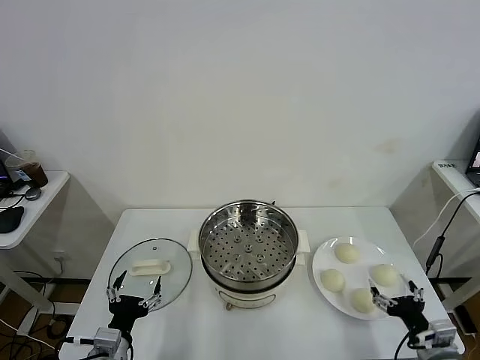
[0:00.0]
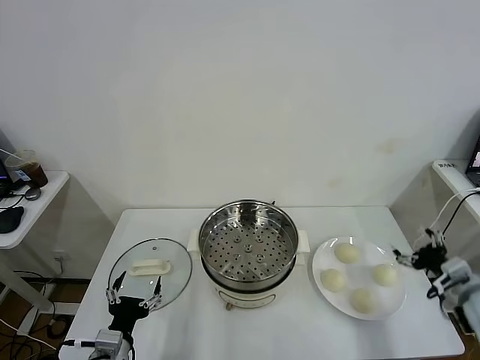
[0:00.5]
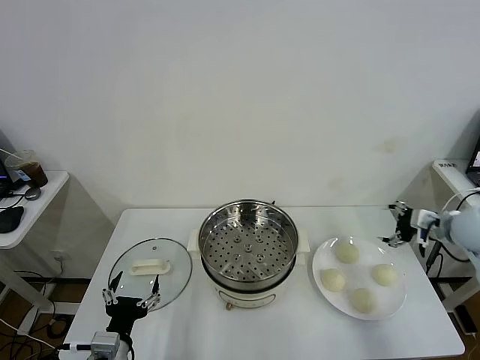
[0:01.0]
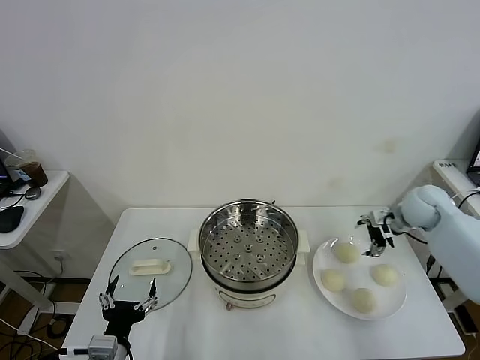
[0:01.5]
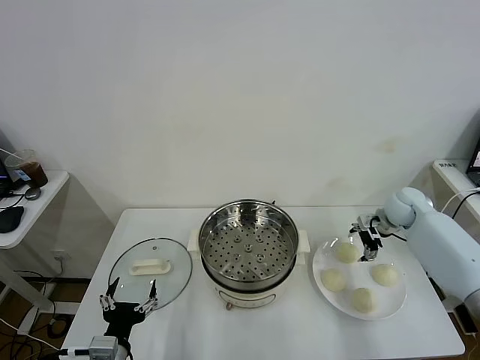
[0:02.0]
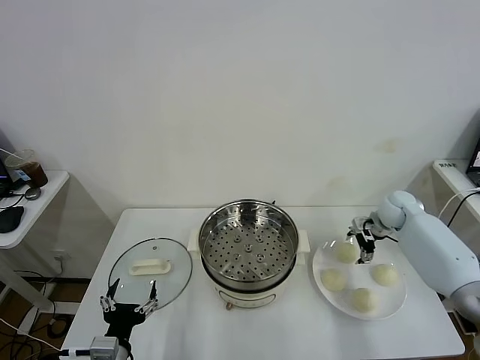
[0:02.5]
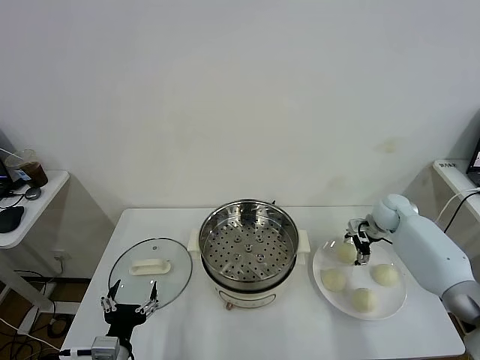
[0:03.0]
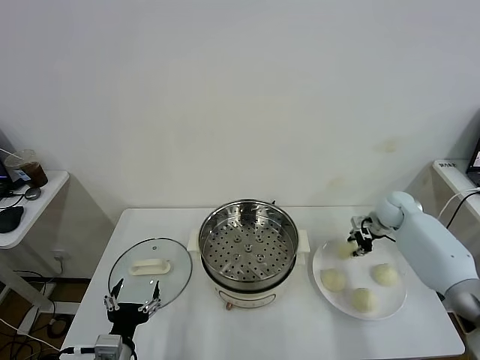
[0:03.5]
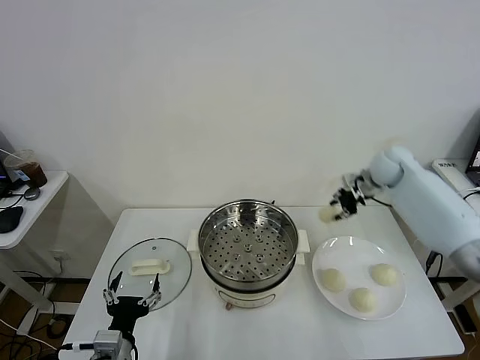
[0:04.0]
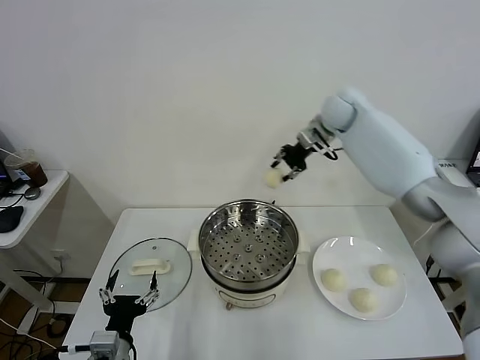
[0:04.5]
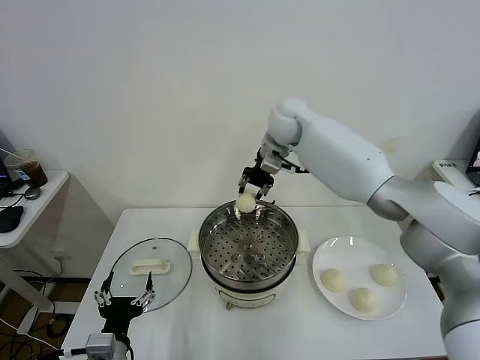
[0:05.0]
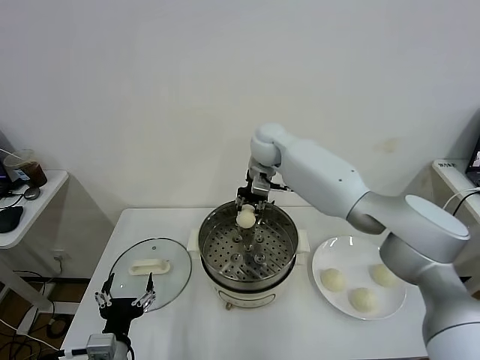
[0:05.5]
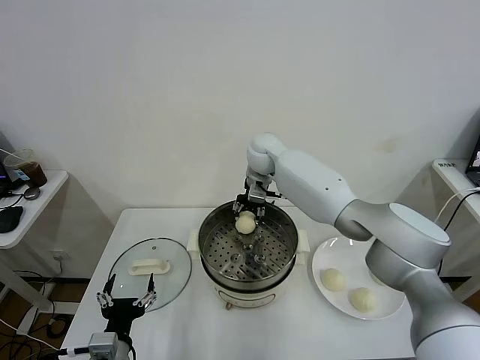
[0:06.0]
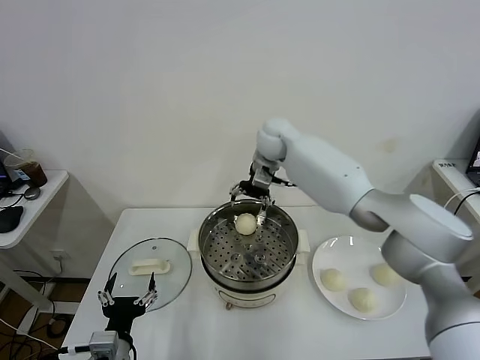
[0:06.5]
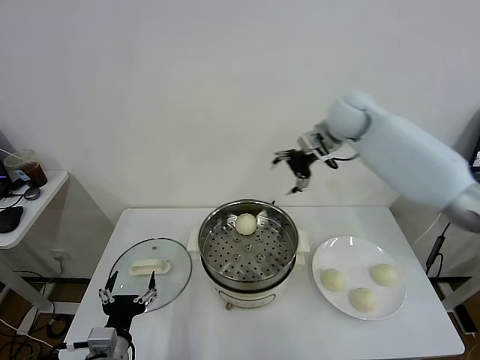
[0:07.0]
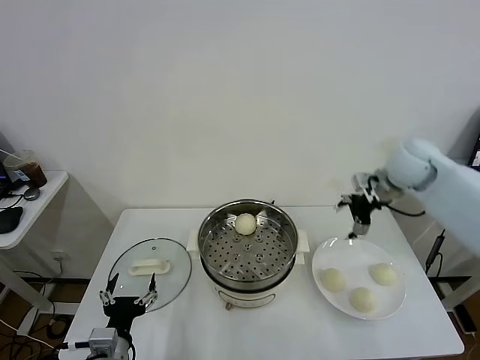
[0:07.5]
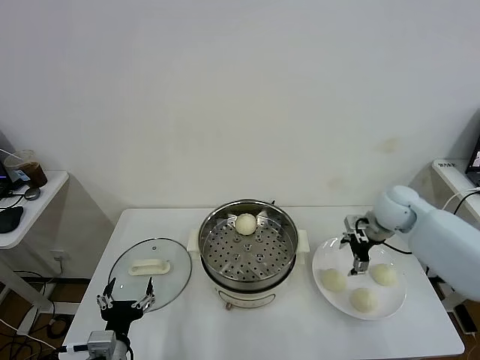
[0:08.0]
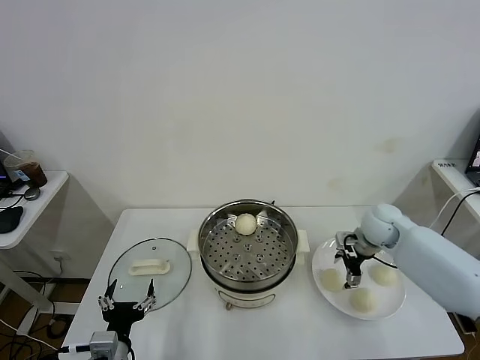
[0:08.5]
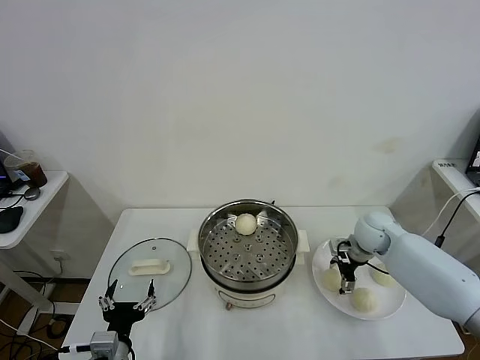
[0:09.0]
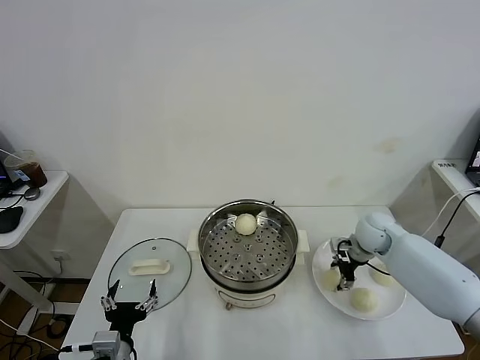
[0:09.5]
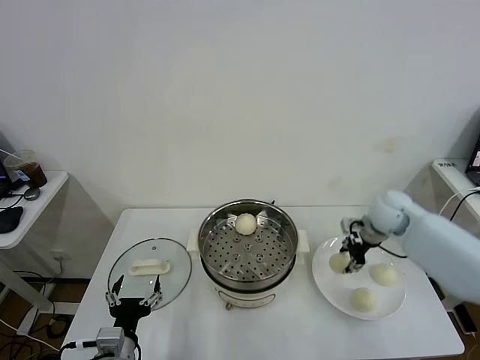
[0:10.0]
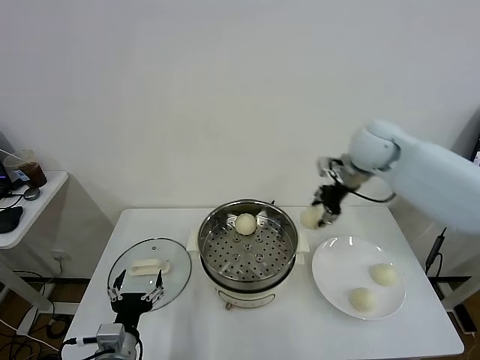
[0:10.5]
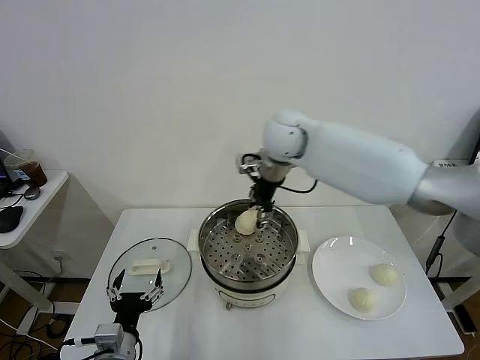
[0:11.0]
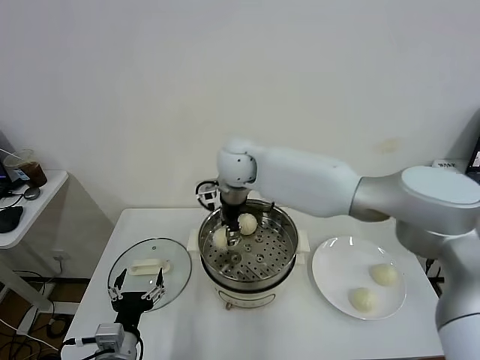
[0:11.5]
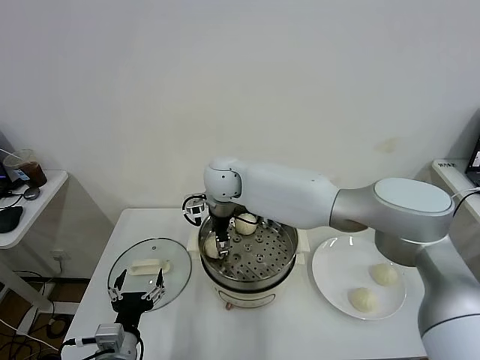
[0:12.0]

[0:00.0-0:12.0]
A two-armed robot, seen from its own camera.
Task of the whole recording: take steamed baozi put them in steamer.
Step, 0:00.0 to 0:03.0: Grasp the baozi in the plate with right gripper.
Step, 0:03.5 to 0:06.0: Place the baozi on the steamer with right gripper.
Step, 0:06.5 to 0:09.5: Grasp the baozi in the plate with right gripper.
0:02.0 to 0:04.0: The right gripper travels upward, forward and to the left by some 15 cm, and closes up.
0:04.0 to 0:06.0: The right gripper travels to the left by roughly 30 cm.
0:06.0 to 0:08.0: The right gripper is displaced to the right and backward by about 35 cm, and opens up.
0:08.0 to 0:10.0: The right gripper reaches approximately 10 cm downward, then returns, and closes.
0:10.0 to 0:12.0: The right gripper is displaced to the left by about 40 cm.

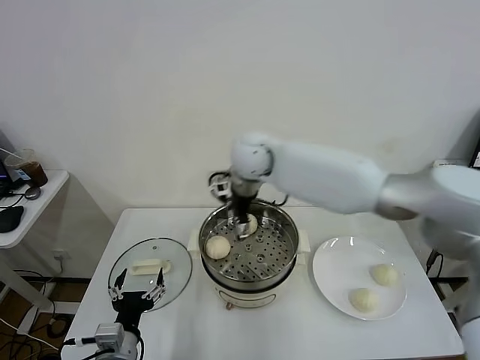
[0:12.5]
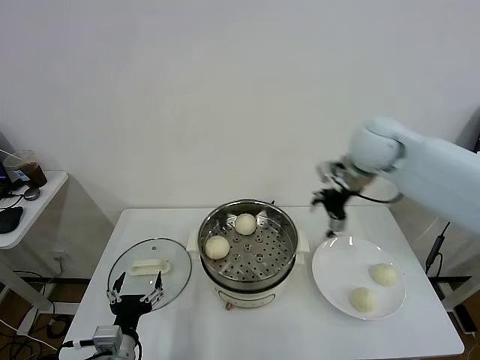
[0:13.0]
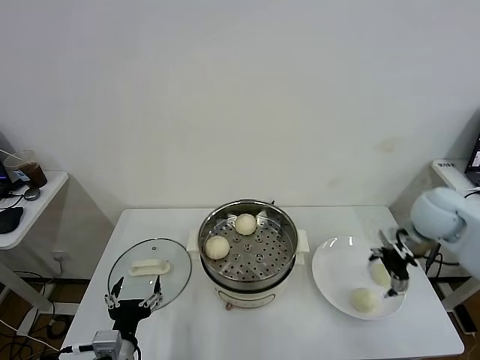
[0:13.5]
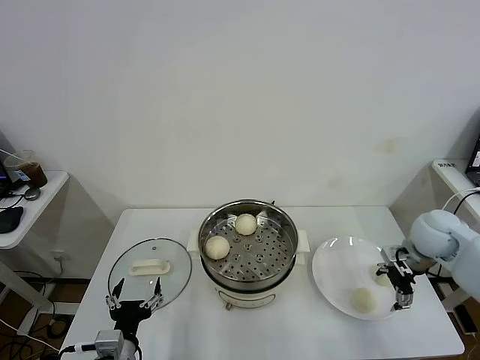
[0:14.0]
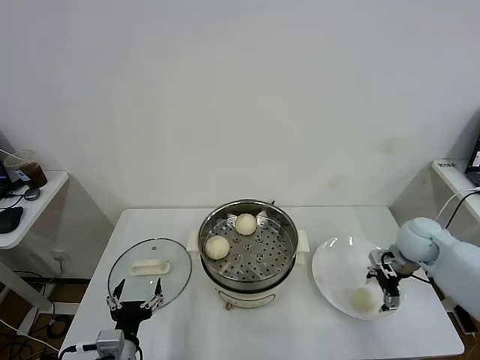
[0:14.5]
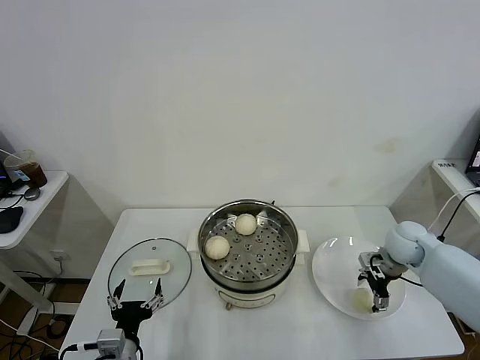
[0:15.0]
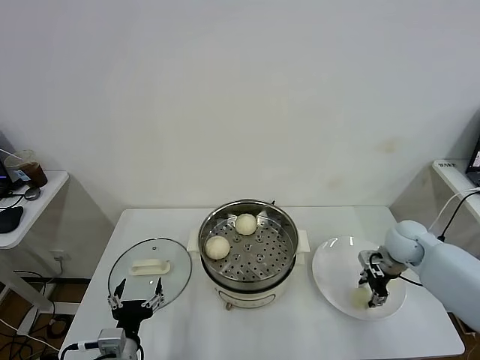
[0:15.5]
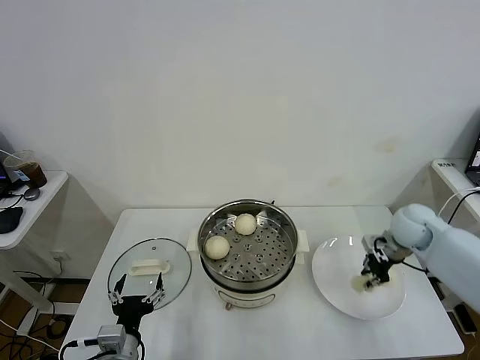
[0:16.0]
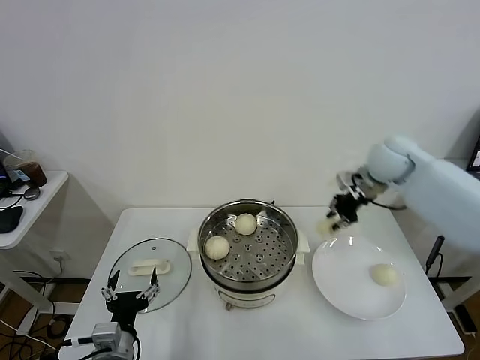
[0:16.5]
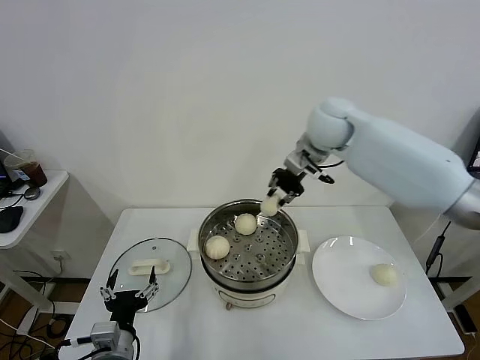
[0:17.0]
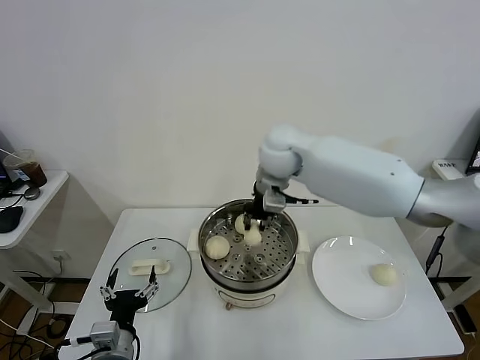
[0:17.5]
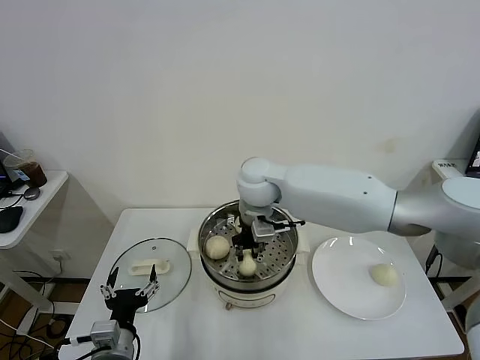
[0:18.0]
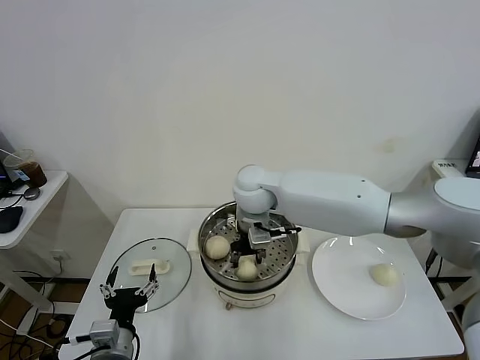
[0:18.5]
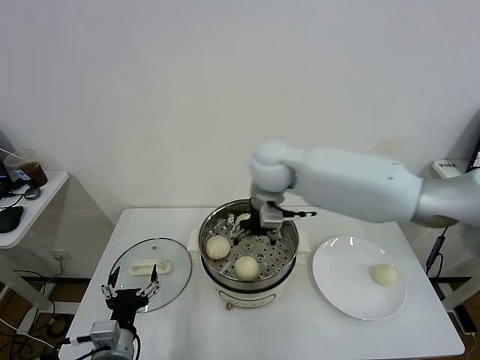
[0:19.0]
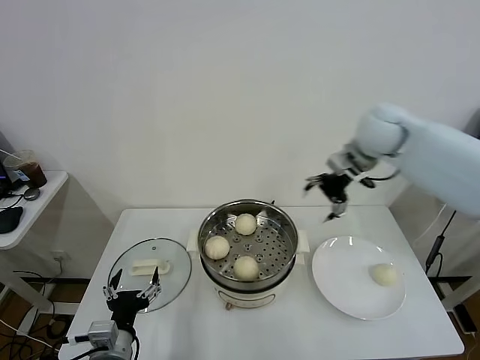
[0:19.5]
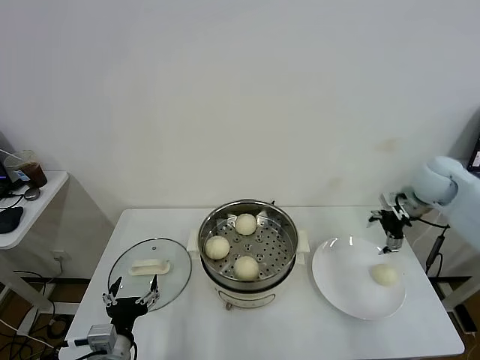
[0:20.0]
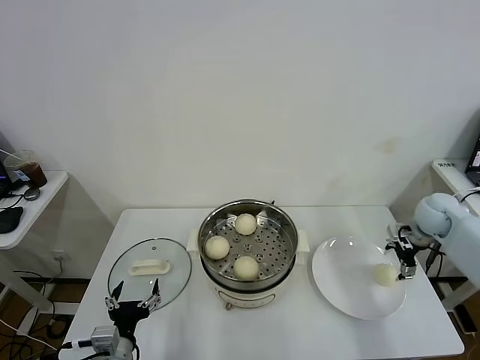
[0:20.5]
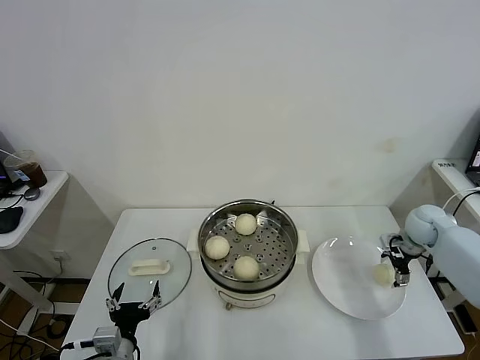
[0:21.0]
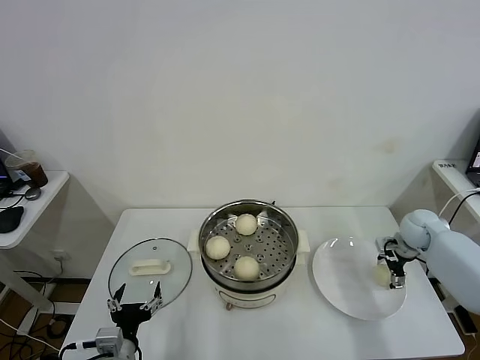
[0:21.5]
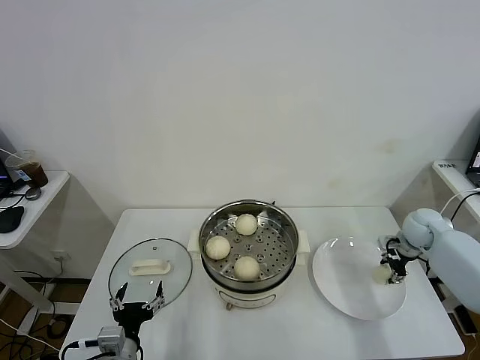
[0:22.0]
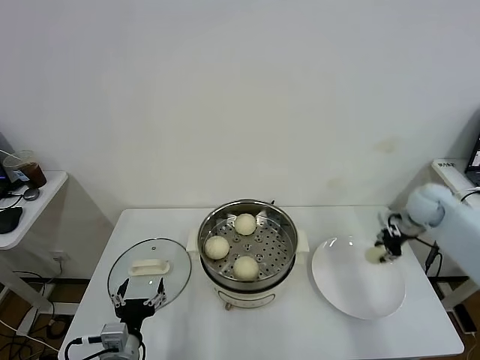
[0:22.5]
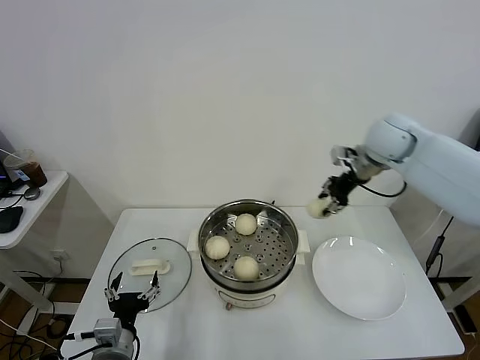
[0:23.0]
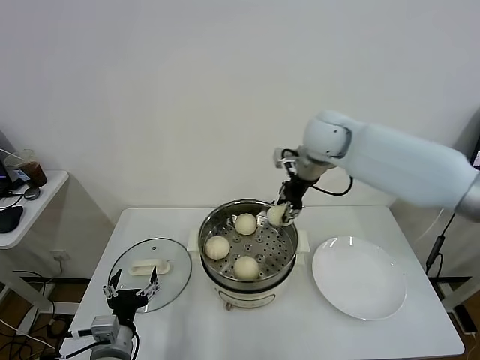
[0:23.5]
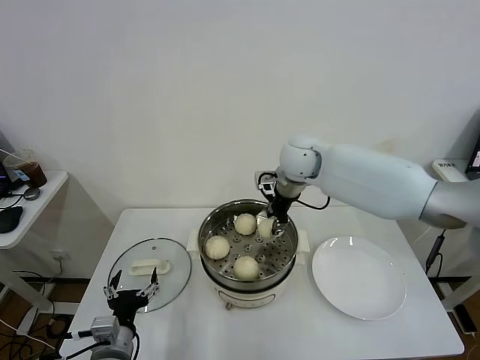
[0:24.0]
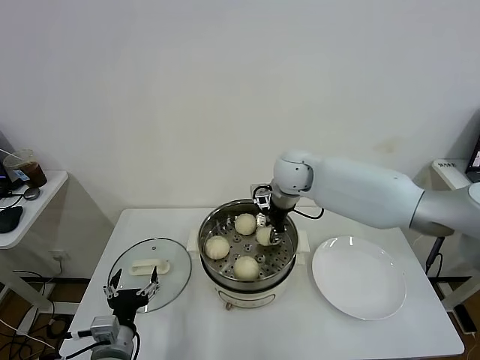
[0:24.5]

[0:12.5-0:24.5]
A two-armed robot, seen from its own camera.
Task of the whole recording: take steamed baozi put them in steamer.
Step, 0:12.5 to 0:15.5: Grasp the baozi in the plate with right gripper.
Step, 0:16.0 to 0:18.5: Place the baozi on the steamer with right gripper.
Step, 0:19.0 to 0:22.0: Grasp the baozi in the plate with right gripper.
0:12.5 to 0:14.5: The right gripper shifts approximately 40 cm to the right and downward.
0:14.5 to 0:16.5: The right gripper travels upward, forward and to the left by approximately 20 cm, and closes its fingers.
0:16.5 to 0:18.5: The right gripper is displaced to the left by about 30 cm, and opens.
0:18.5 to 0:20.5: The right gripper shifts about 40 cm to the right, and opens its fingers.
0:20.5 to 0:22.5: The right gripper travels downward and back again, some 5 cm each way, and closes up.
0:22.5 to 0:24.5: The right gripper heads to the left, covering about 35 cm.

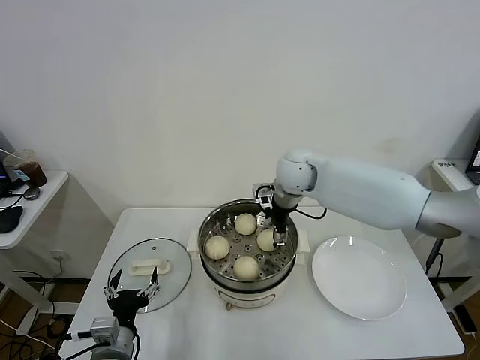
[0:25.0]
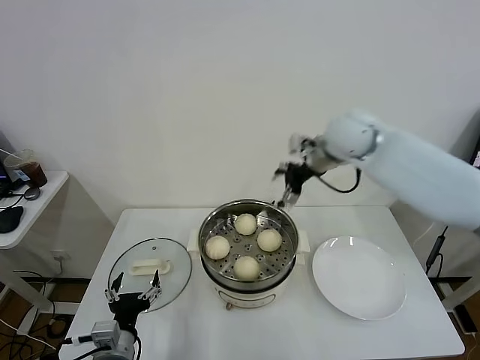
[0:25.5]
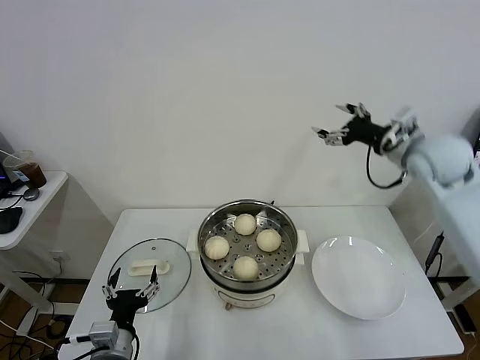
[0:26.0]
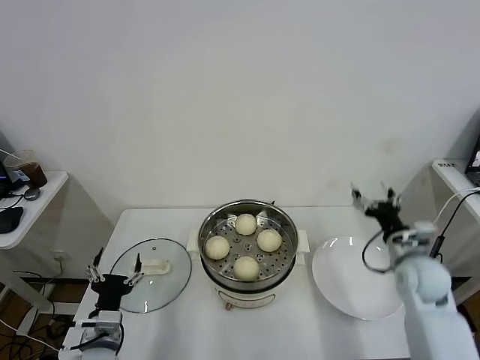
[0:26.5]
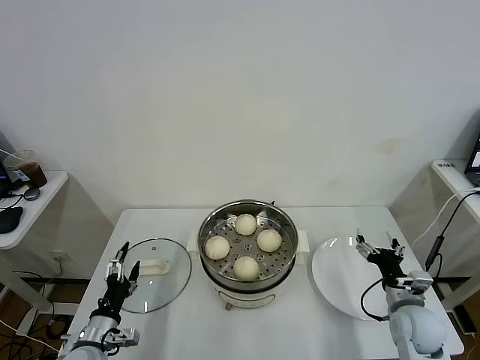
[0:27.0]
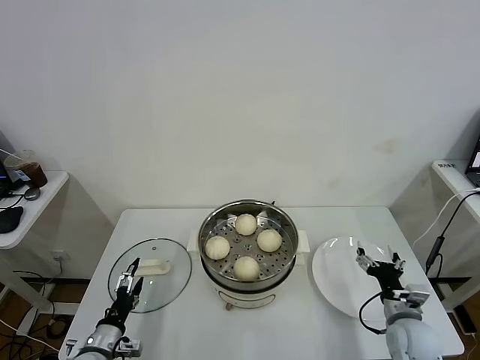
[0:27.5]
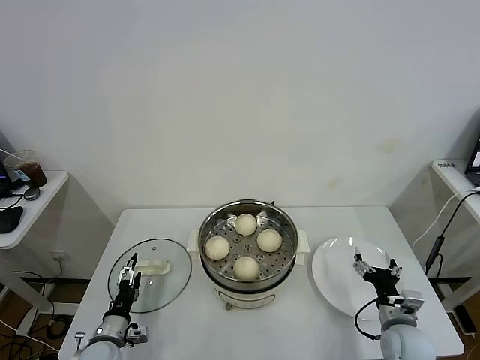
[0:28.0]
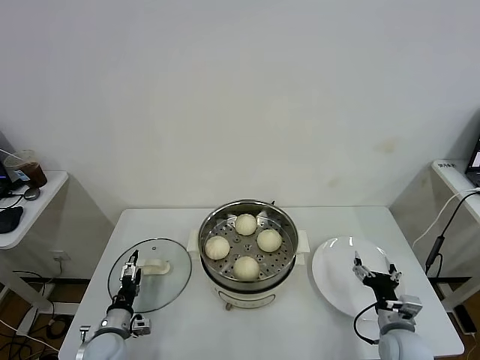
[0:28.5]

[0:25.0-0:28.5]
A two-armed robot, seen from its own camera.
Task of the whole recording: take steamed baozi put them in steamer.
0:25.0 to 0:27.0: The right gripper moves backward, to the right and downward, roughly 40 cm; the left gripper heads to the left and downward, covering roughly 10 cm.
0:27.0 to 0:28.5: The left gripper travels downward by roughly 10 cm, while the right gripper moves about 5 cm.
